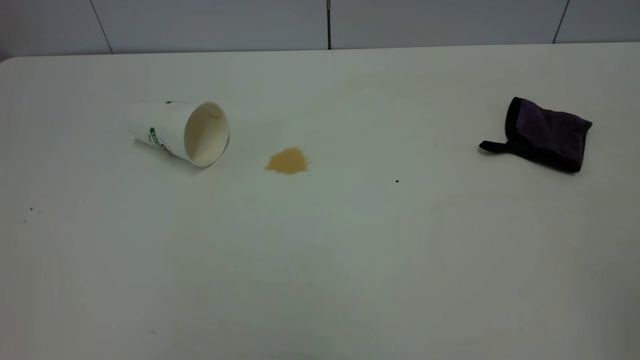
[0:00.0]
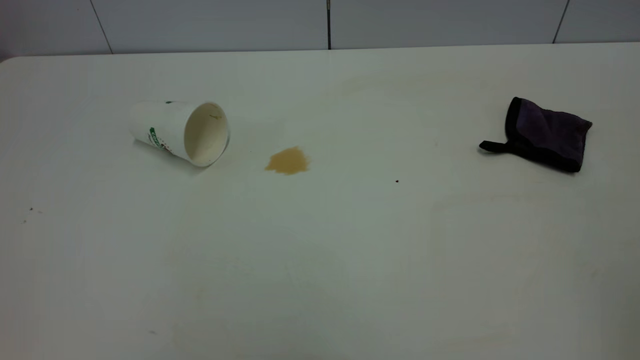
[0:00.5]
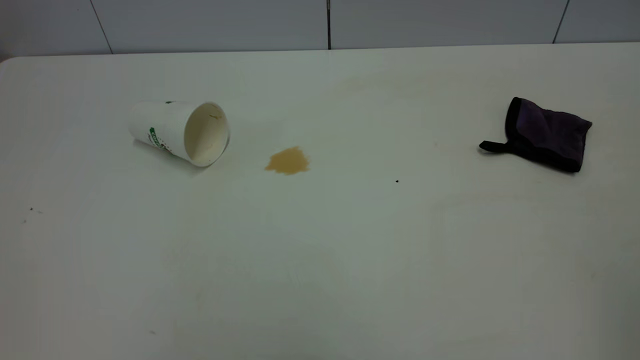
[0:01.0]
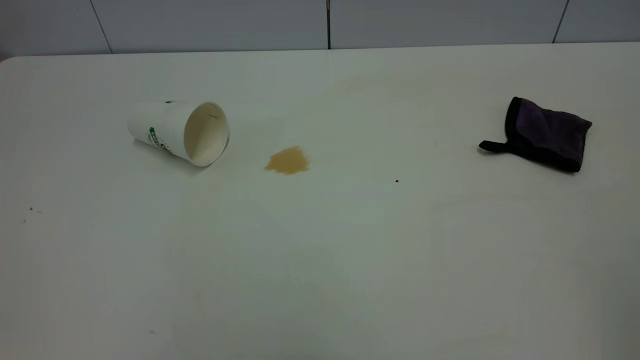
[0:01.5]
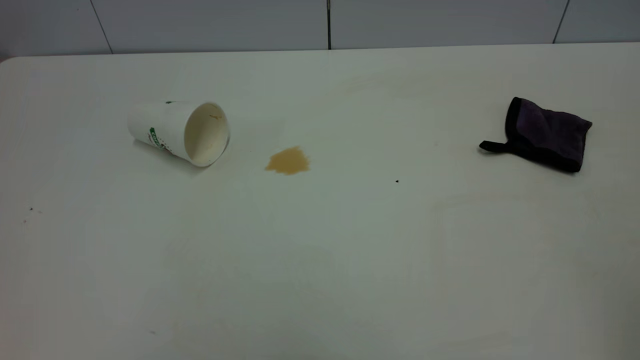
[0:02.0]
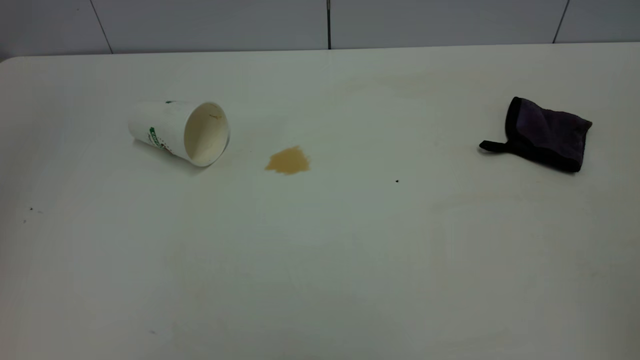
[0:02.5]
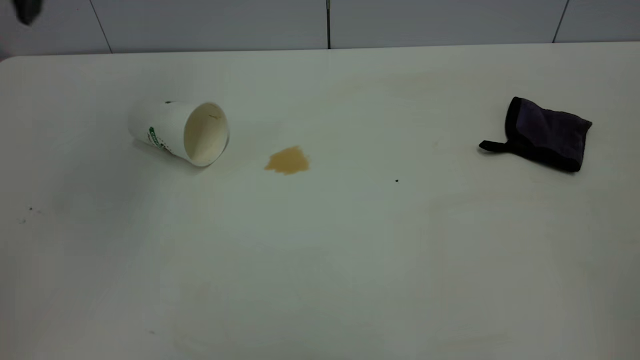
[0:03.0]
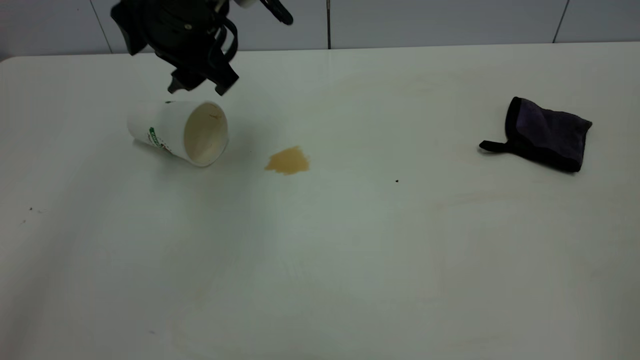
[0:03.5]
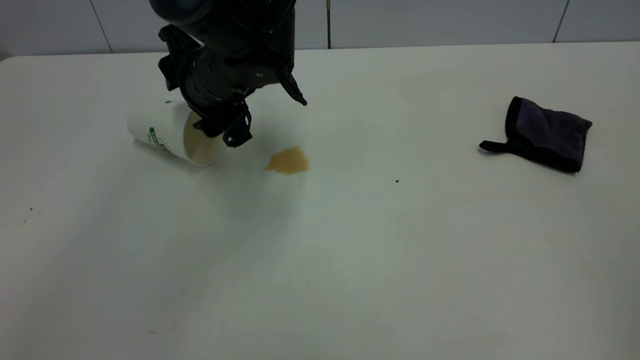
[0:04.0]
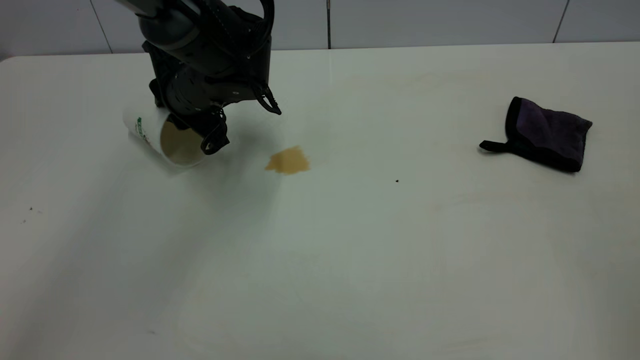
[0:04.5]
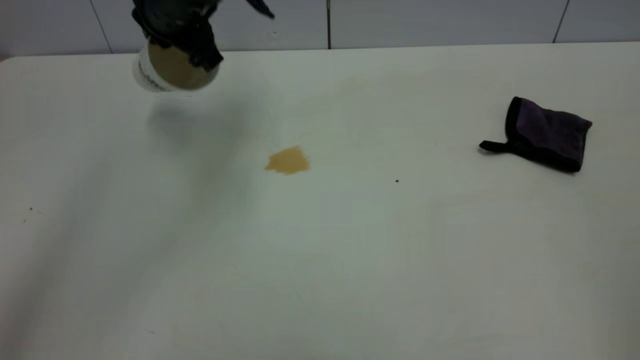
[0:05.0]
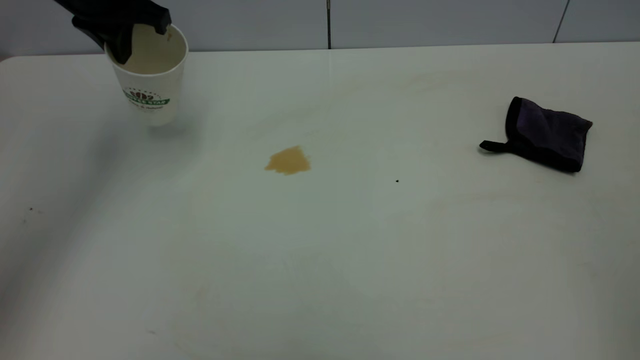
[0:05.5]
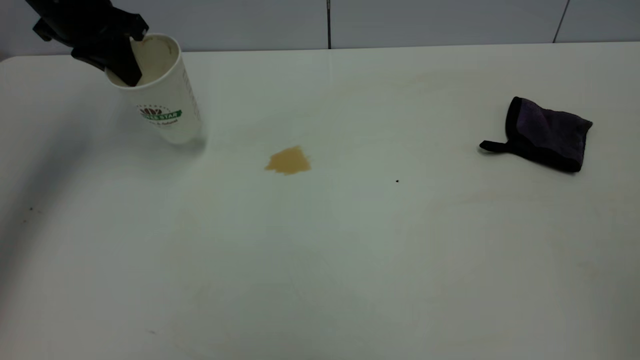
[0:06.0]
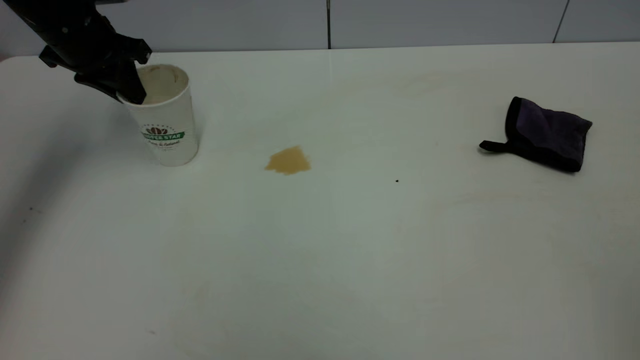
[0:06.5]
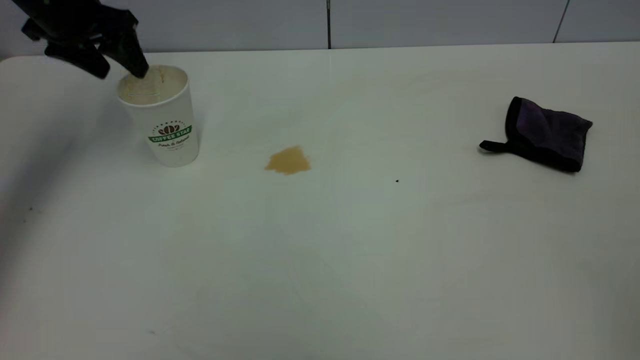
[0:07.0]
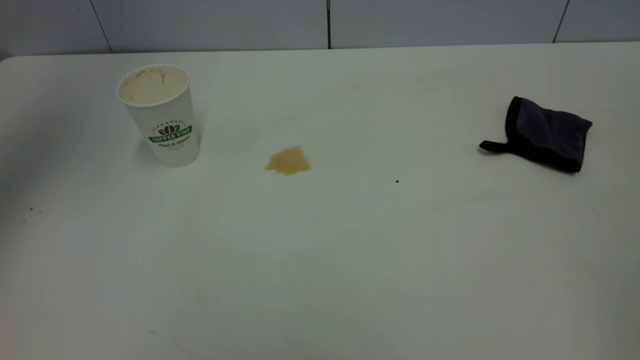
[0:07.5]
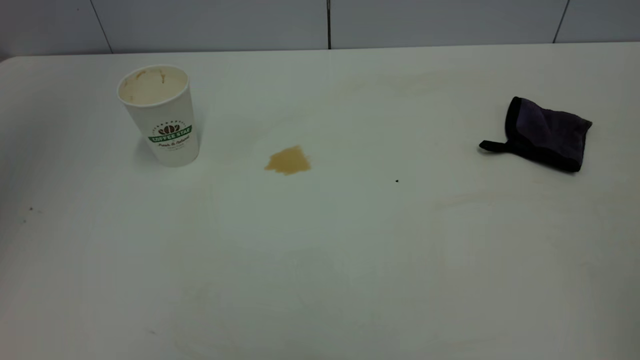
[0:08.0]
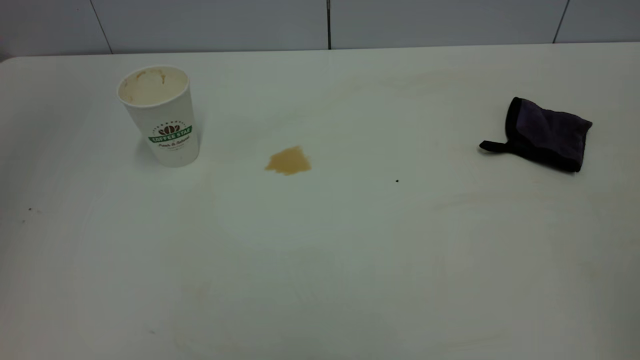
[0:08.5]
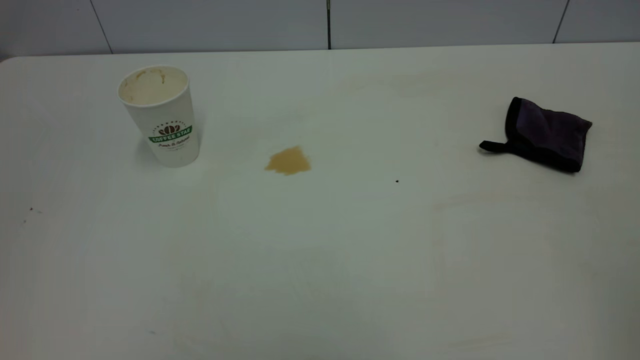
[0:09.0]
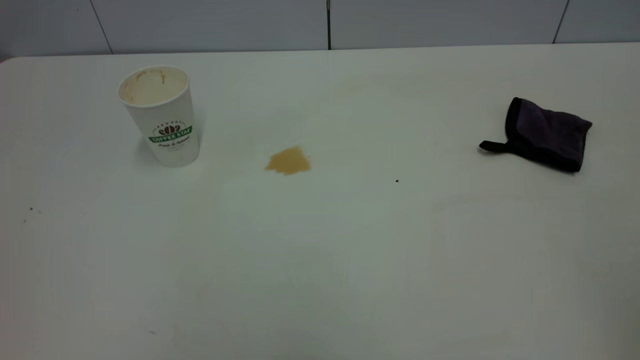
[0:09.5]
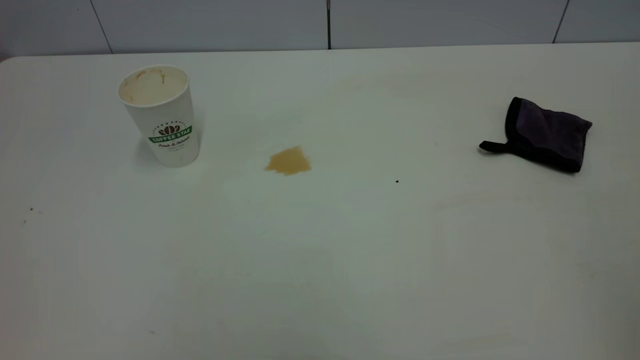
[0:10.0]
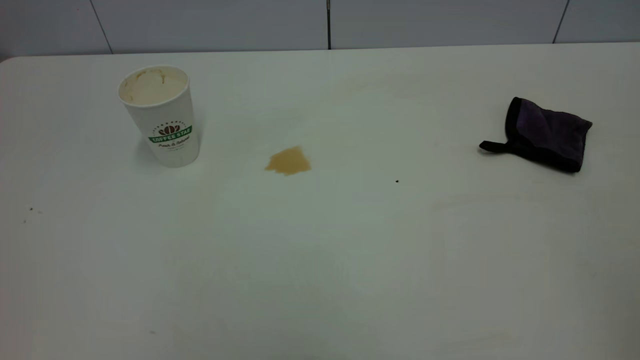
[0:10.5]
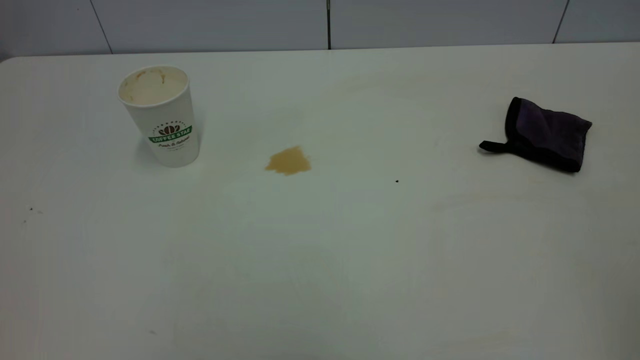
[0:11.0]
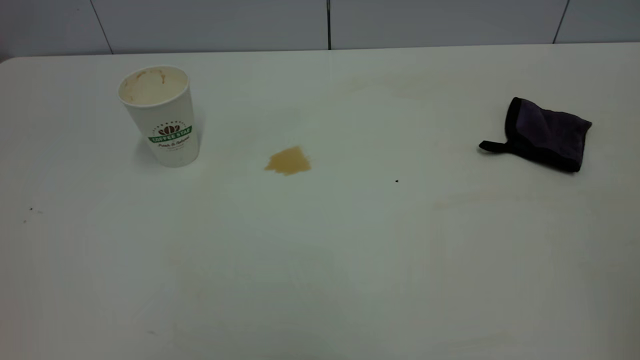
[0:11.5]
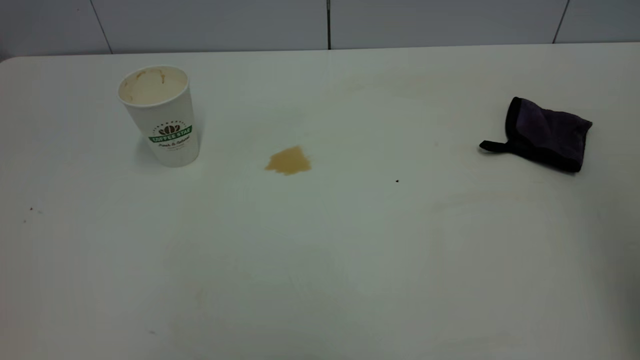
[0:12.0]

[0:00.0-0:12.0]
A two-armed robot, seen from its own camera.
Task of the whole recording: the left gripper pick up the fallen cup and place it upright, the right gripper grasp the purple rag and wipe the tea stain on the table, the right gripper put the purple rag back in its original position.
Step, 0:00.0 to 0:06.5: Stand the paper cup upright.
0:02.0 to 0:04.0: The left gripper travels forward, downward and to the right by some 50 cm.
0:04.0 to 0:06.0: The left gripper heads to the left and upward, covering approximately 20 cm, and closes.
0:06.0 to 0:08.0: The left gripper heads upward and backward, covering roughly 35 cm, and opens up.
0:08.0 to 0:10.0: The left gripper moves backward and downward, about 35 cm.

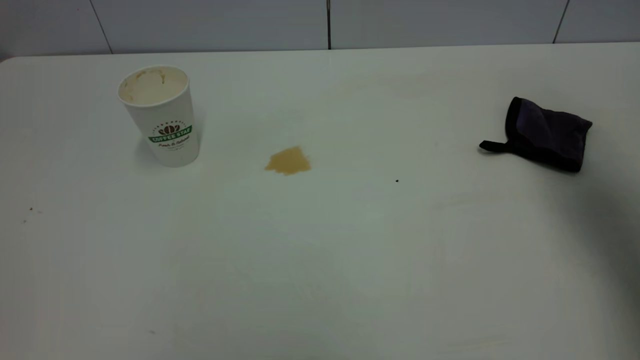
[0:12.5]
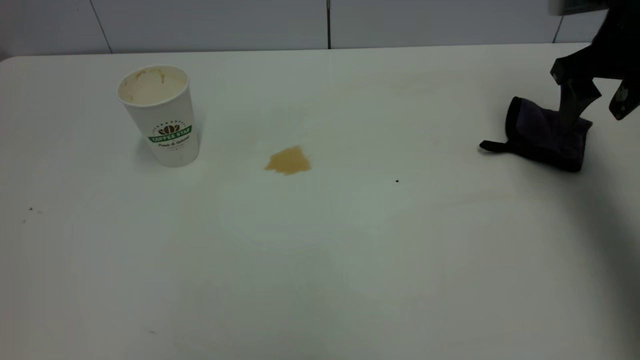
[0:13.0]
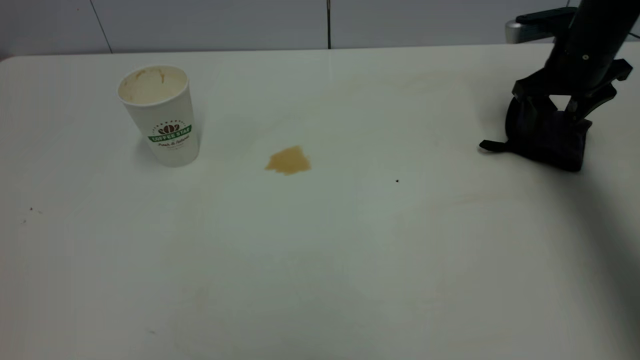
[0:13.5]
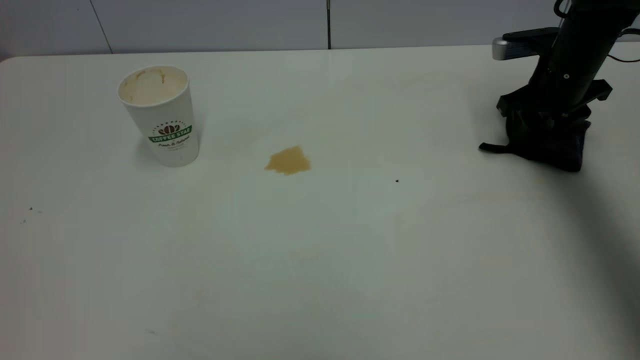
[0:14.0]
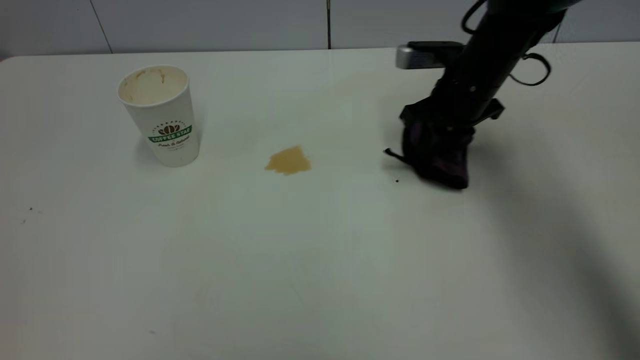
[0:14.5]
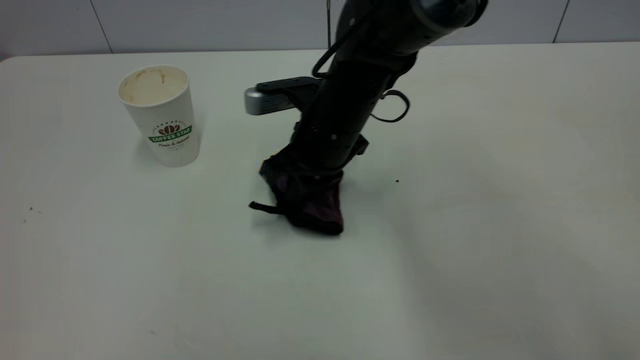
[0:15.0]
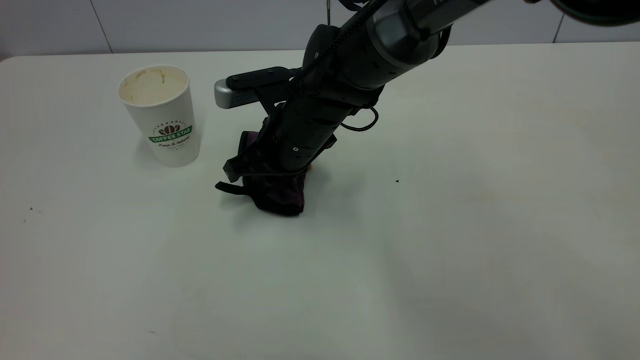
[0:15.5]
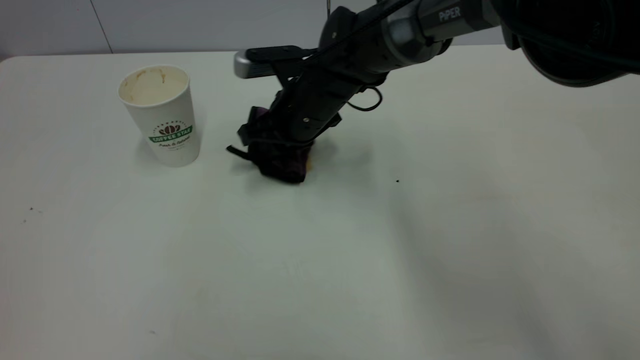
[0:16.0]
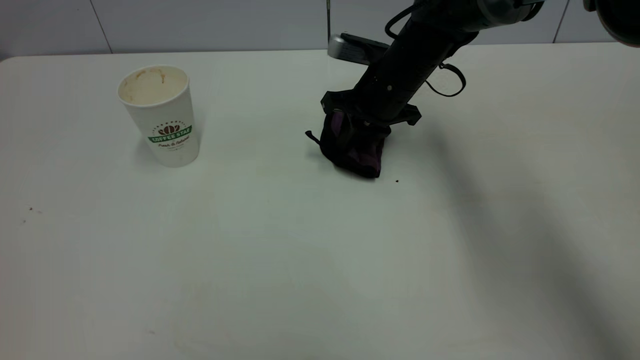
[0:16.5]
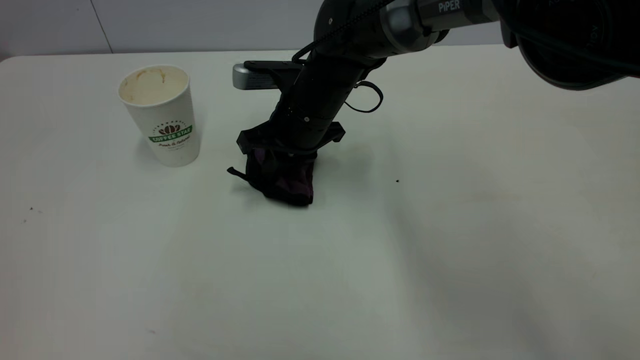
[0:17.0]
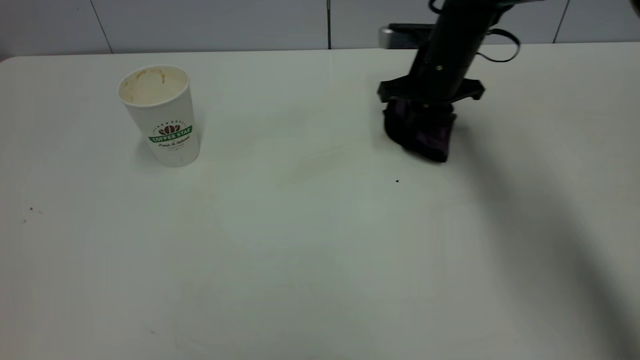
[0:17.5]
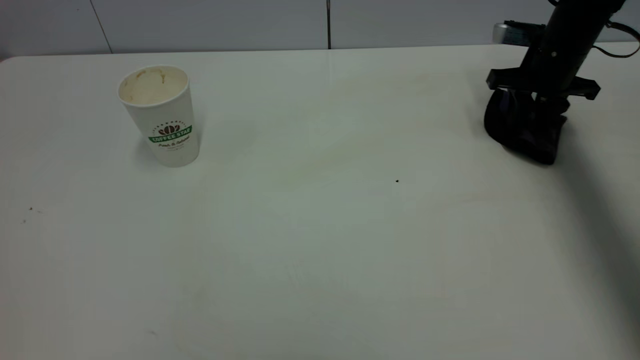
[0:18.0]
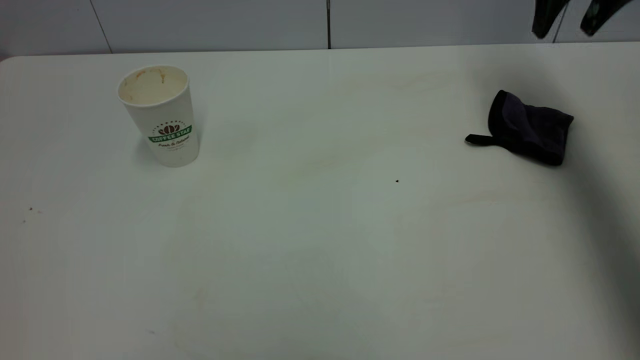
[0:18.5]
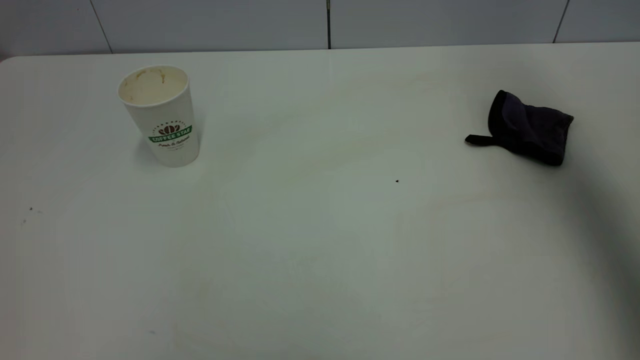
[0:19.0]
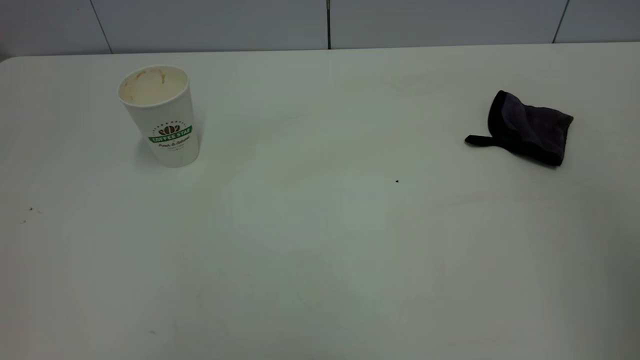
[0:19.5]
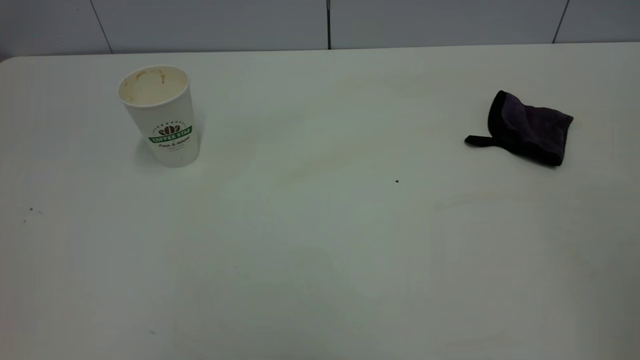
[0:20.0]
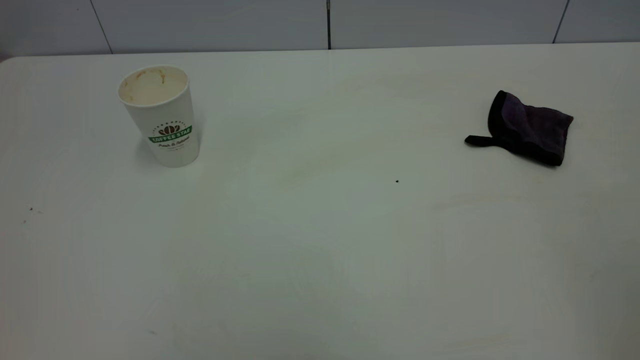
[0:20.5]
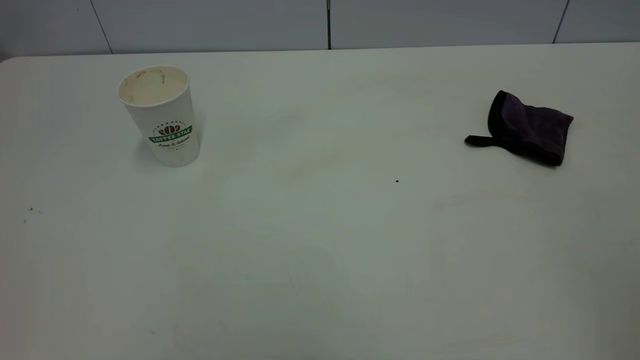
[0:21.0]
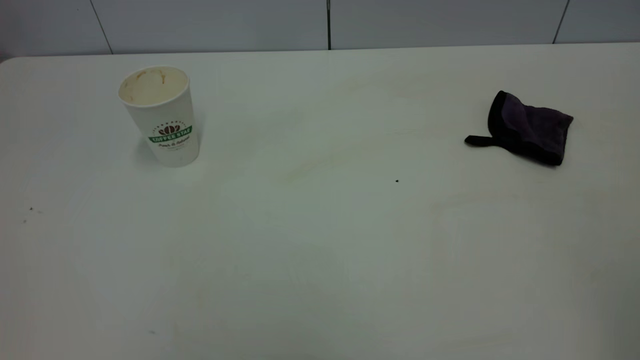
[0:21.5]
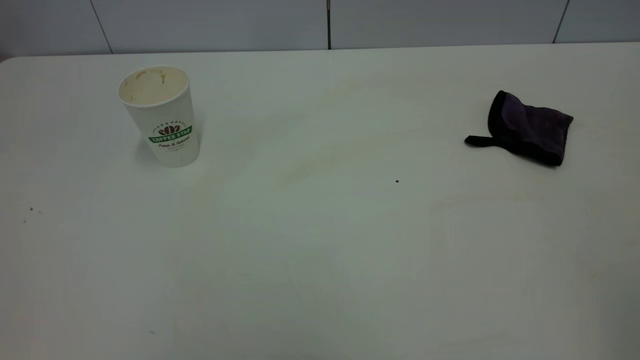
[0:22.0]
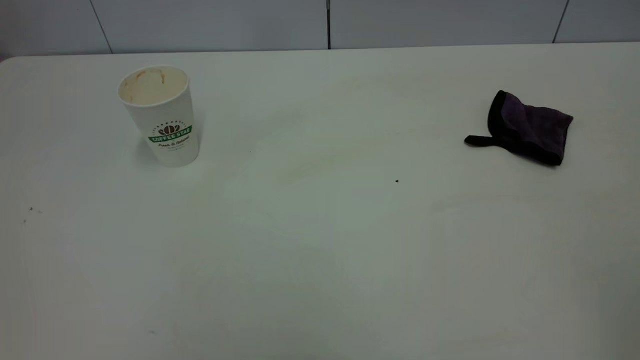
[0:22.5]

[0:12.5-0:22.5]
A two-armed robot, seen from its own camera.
Task of the whole recording: the left gripper pick up the fallen cup and place it upright, the right gripper grasp the purple rag and wipe the tea stain on the table, the right gripper put the purple rag back in its original position.
Step, 0:12.5 to 0:18.0: Wipe the stains off the table with a rag.
0:12.5 to 0:14.5: The right gripper is displaced downward, to the left and forward by about 30 cm, and closes.
0:14.5 to 0:16.5: The right gripper shifts about 10 cm to the left.
0:16.5 to 0:18.5: The right gripper travels to the right and upward by approximately 30 cm, and opens its fingers.
0:18.5 to 0:20.5: The right gripper moves backward, approximately 50 cm.
